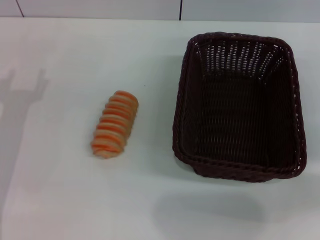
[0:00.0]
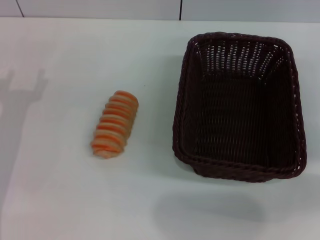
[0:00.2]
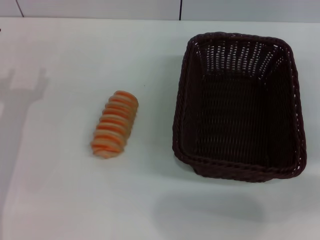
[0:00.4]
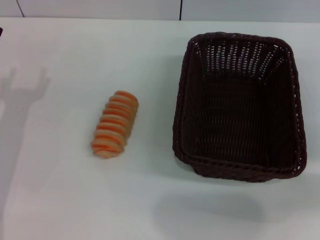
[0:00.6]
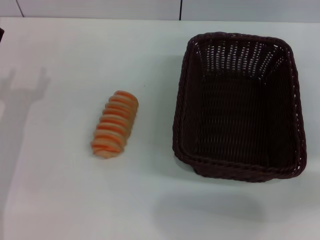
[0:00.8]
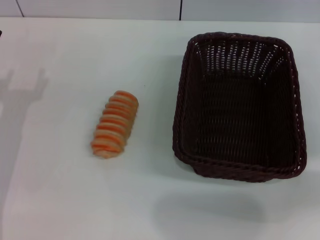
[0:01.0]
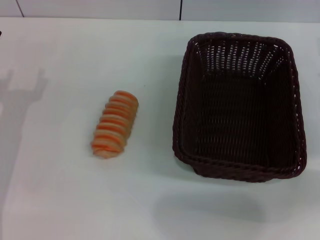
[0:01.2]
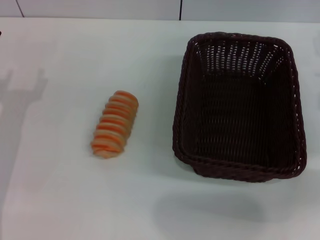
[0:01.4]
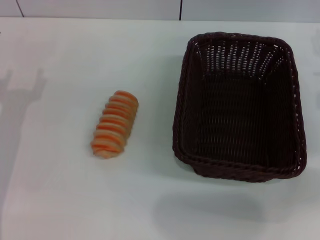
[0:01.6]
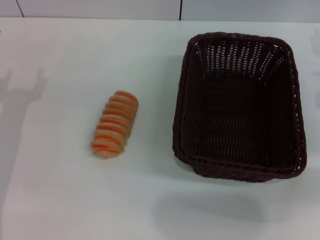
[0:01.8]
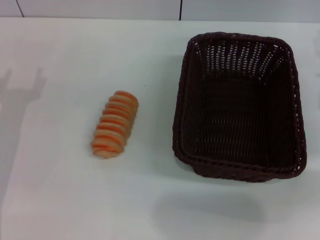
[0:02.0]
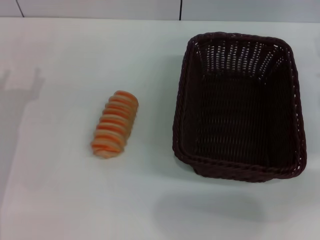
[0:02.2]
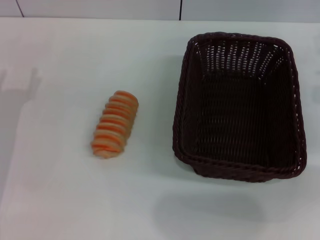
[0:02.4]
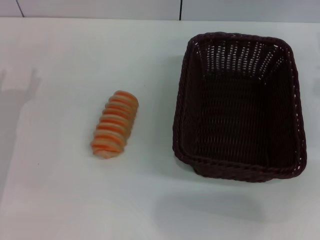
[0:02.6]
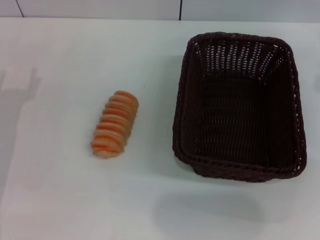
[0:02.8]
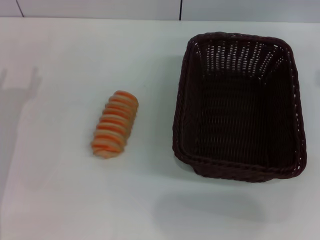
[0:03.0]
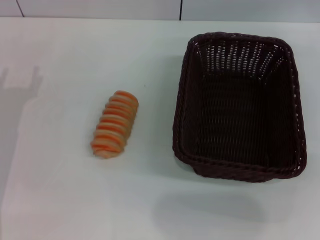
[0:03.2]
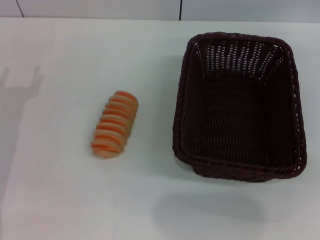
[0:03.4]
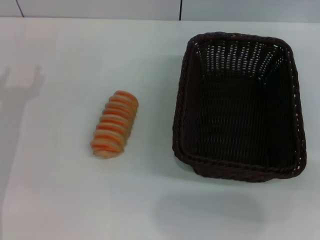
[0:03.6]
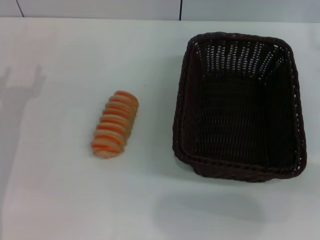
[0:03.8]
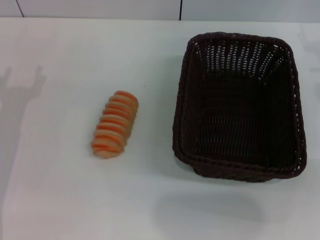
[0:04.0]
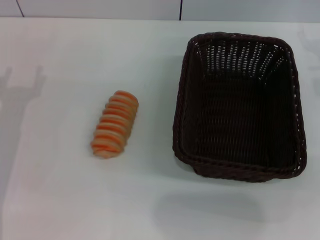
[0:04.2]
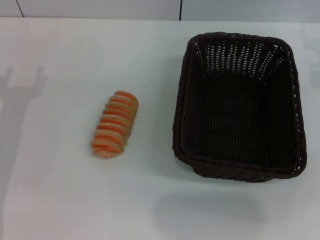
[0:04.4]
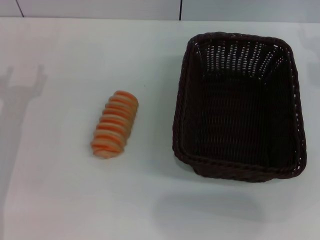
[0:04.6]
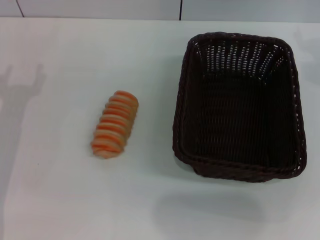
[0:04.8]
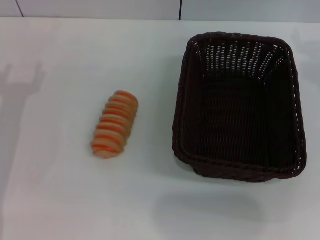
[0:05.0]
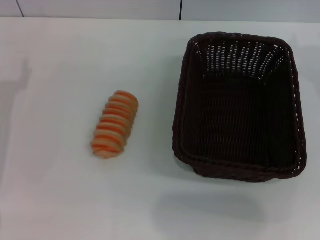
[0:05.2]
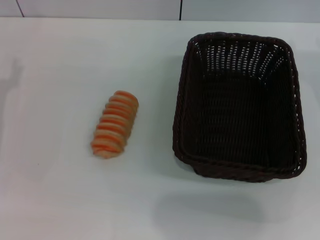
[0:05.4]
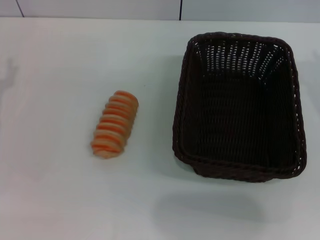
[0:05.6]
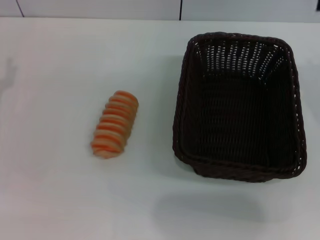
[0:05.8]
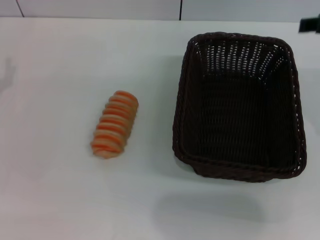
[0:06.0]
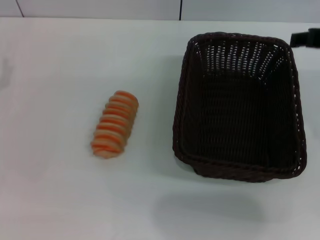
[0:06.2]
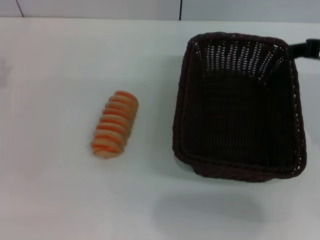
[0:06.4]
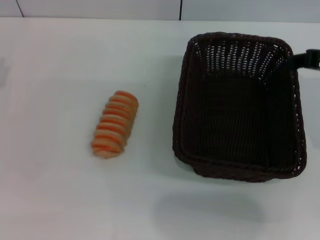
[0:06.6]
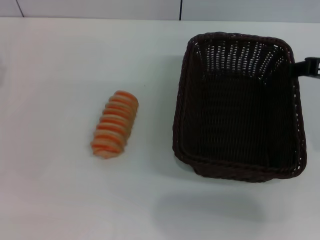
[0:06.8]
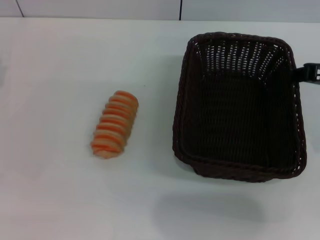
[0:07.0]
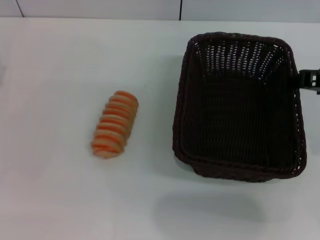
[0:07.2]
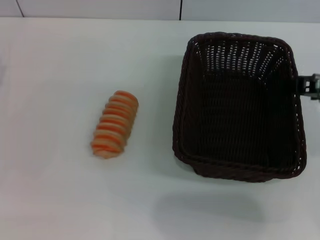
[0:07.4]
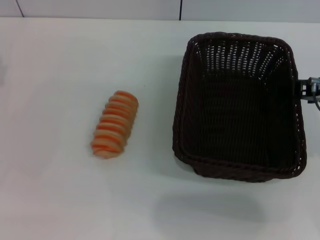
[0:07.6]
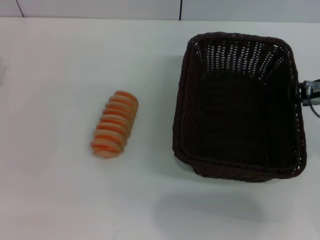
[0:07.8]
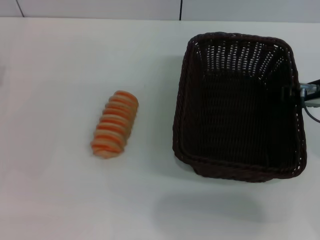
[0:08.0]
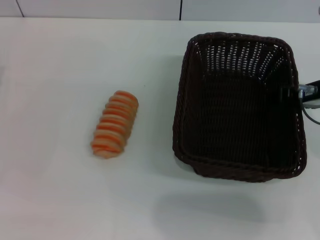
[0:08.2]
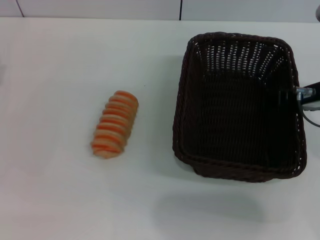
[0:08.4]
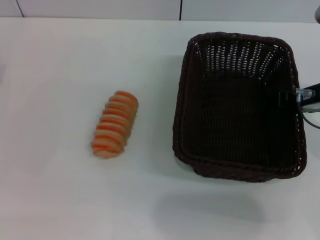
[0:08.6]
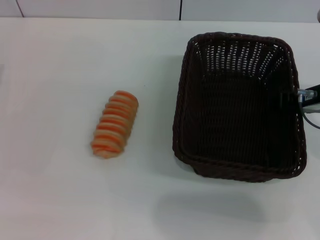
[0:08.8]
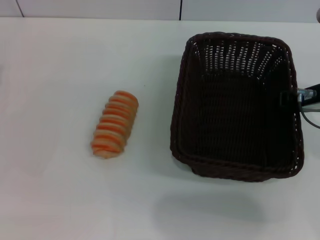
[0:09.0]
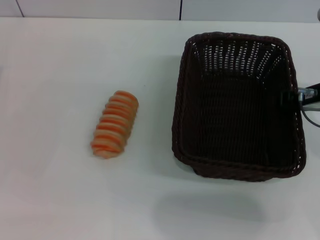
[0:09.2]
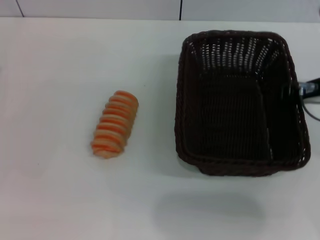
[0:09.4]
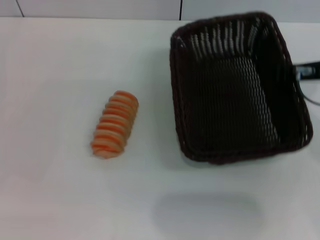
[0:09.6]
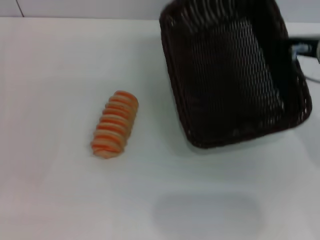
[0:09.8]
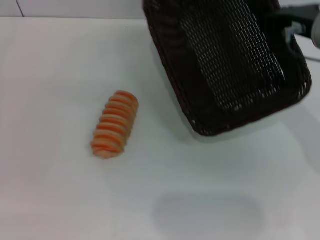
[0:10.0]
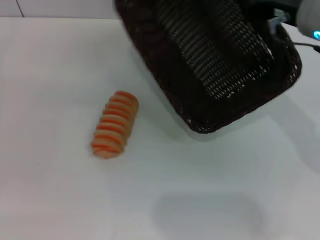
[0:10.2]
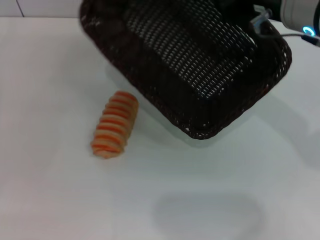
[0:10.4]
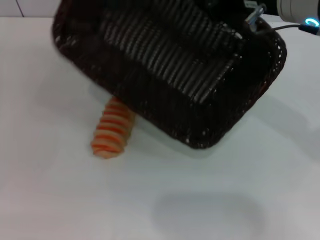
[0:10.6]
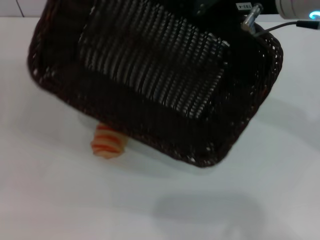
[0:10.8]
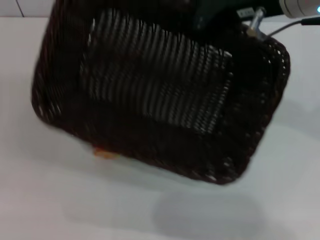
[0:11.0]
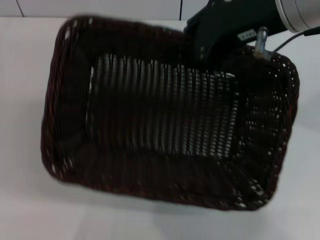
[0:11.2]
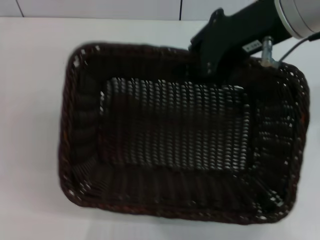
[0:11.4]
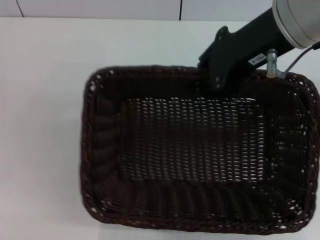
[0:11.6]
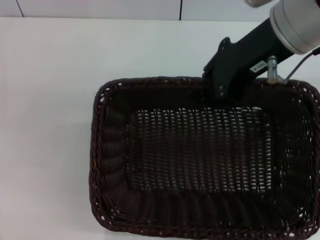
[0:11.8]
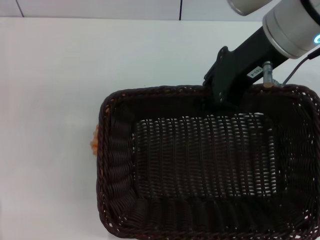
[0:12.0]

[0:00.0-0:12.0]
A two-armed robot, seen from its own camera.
Step, 0:00.0 to 0:09.8: Pick up the dark basket with the right gripper.
0:06.0 to 0:07.6: The right gripper travels downward by approximately 5 cm.
0:07.6 to 0:09.0: The right gripper closes its fingers.
0:09.0 to 0:10.4: The right gripper travels upward and to the left by roughly 10 cm, and closes up.

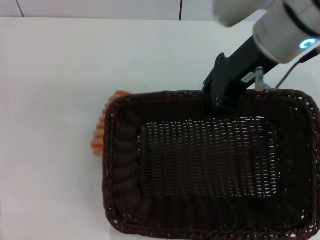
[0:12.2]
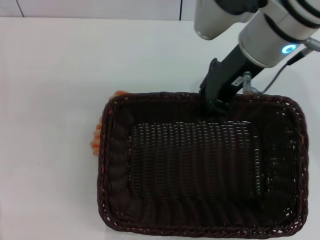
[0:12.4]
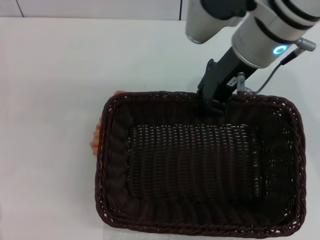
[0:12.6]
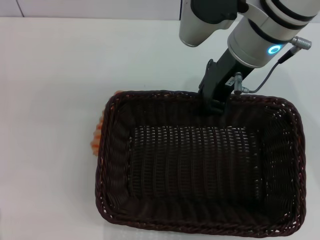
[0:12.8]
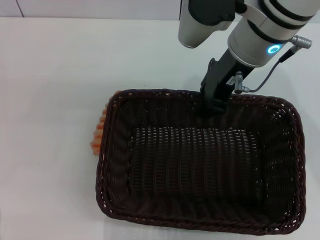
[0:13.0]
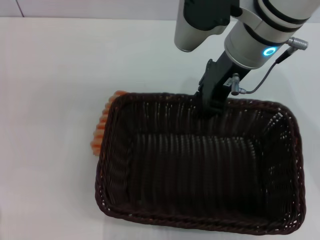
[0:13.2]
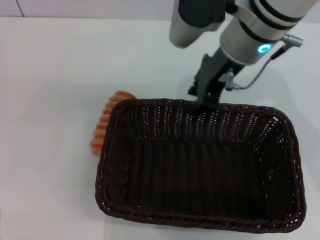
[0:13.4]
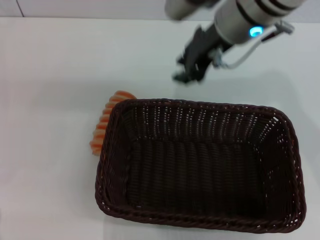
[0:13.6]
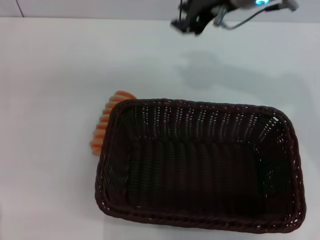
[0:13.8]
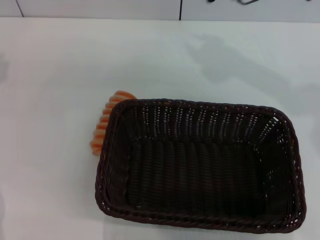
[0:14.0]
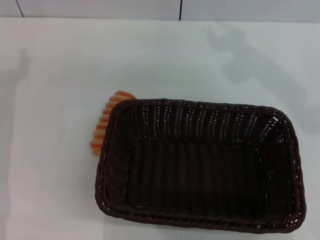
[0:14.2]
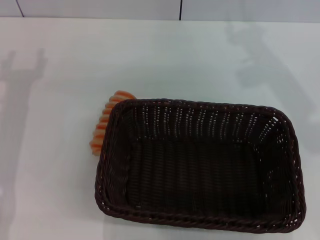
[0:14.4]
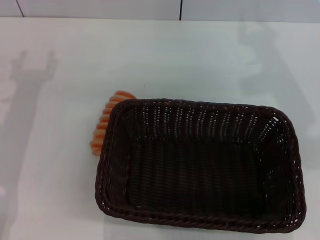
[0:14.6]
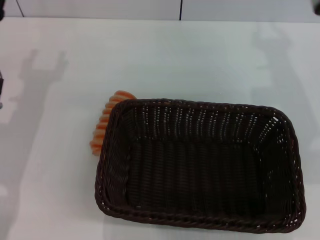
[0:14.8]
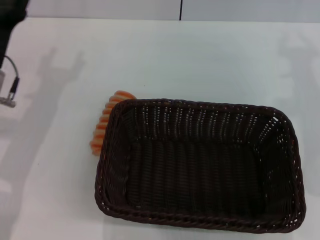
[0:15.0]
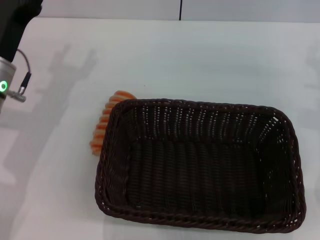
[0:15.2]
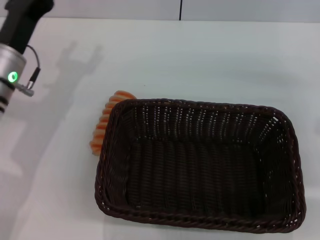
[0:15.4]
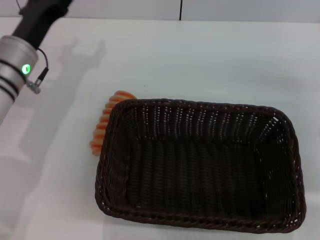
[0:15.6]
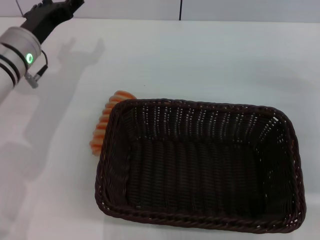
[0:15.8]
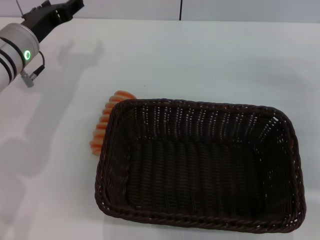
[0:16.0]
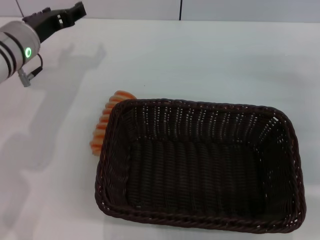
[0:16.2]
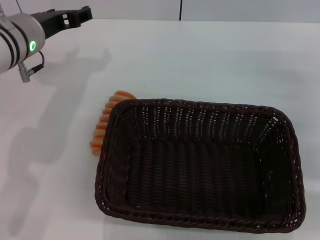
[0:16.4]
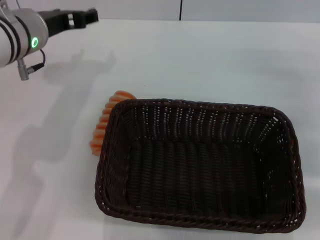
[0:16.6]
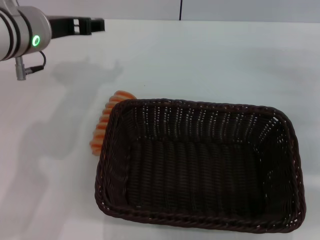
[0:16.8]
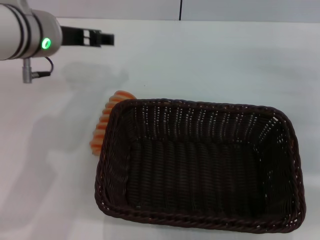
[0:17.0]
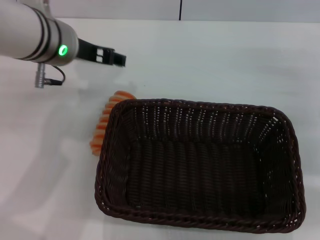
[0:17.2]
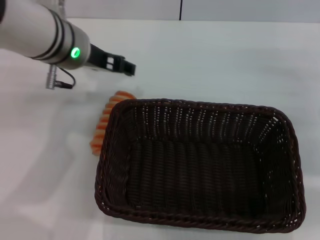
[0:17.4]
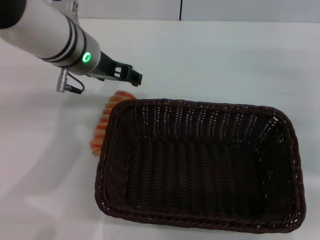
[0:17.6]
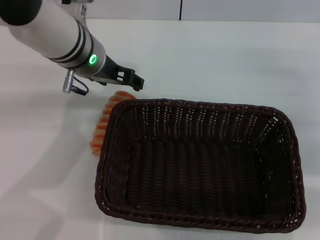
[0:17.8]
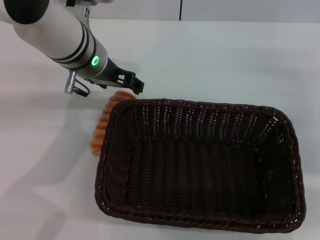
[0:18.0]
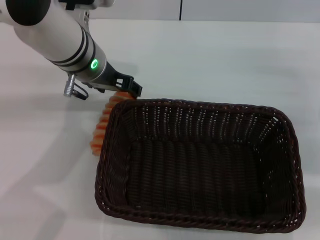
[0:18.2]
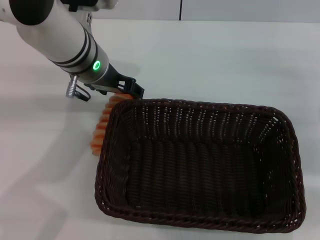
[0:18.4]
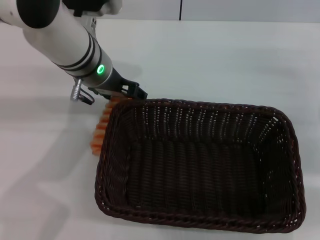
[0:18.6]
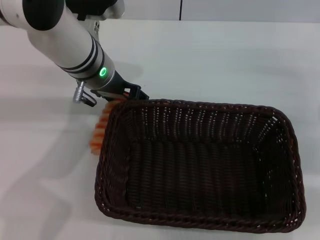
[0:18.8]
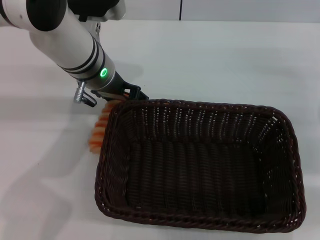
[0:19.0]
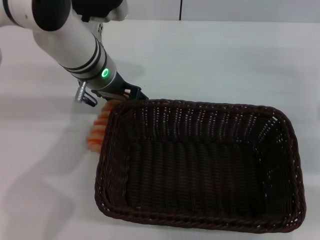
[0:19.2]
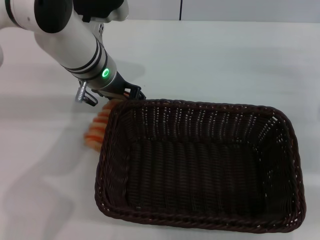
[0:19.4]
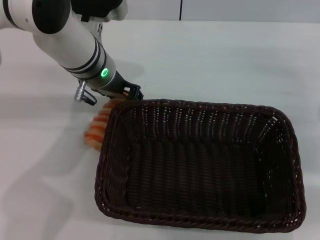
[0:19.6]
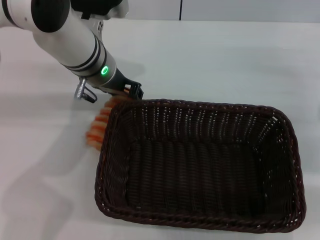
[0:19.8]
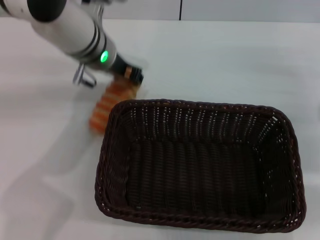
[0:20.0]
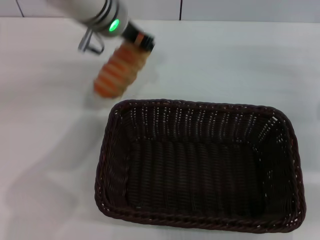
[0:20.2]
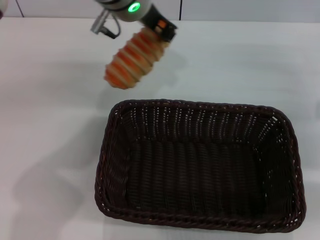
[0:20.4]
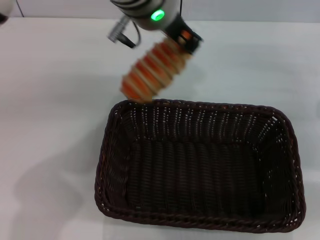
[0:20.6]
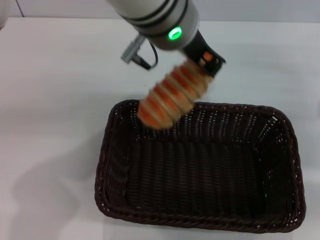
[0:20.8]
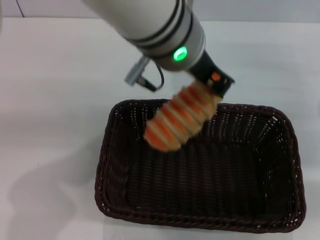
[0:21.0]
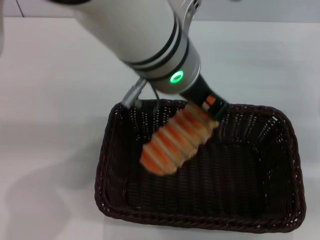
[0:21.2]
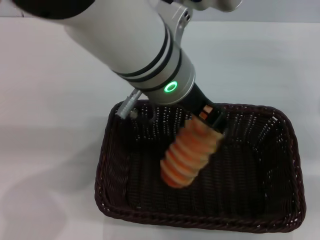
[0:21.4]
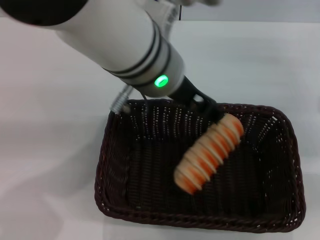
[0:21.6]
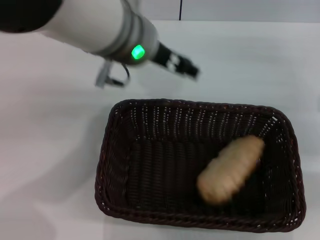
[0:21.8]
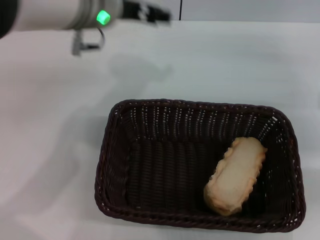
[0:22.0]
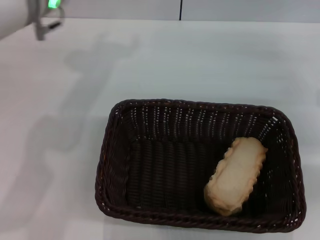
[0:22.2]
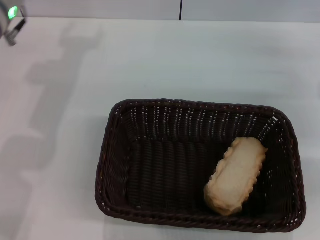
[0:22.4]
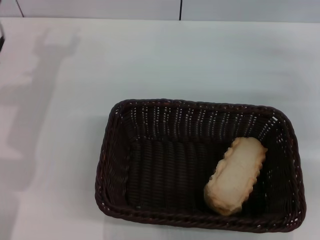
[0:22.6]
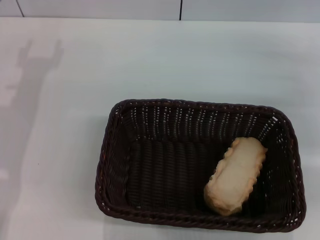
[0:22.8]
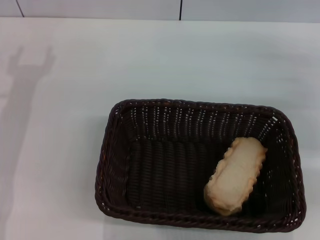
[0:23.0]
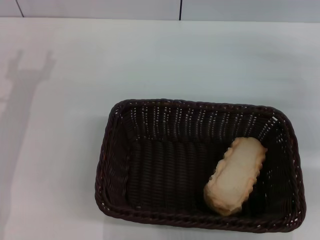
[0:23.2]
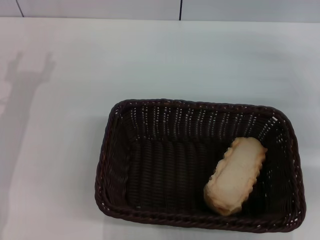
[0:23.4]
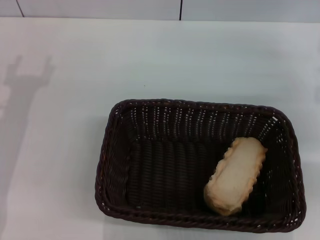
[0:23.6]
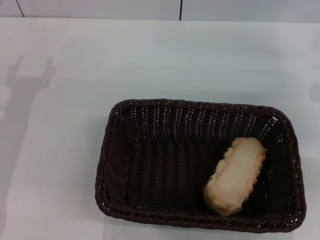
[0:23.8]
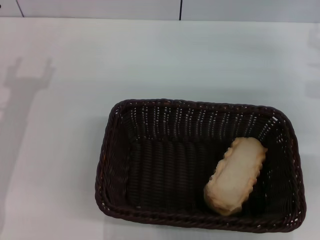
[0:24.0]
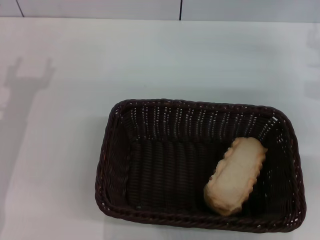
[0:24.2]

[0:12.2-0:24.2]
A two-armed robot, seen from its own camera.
Step, 0:13.6 to 0:20.0: Pick up the long bread with the left gripper.
Step, 0:20.2 to 0:21.6: Place the long bread into the dark basket with the left gripper.
0:12.2 to 0:13.8: The right gripper travels forward by approximately 5 cm, and opens up.
0:13.8 to 0:15.2: The left gripper shifts about 10 cm to the right. Meanwhile the right gripper goes about 20 cm to the right, downward and backward.
0:15.2 to 0:16.6: The left gripper heads upward and to the right, covering some 10 cm. Meanwhile the right gripper changes place by some 5 cm.
0:16.6 to 0:18.2: The left gripper heads to the right, covering some 5 cm.
0:18.2 to 0:19.8: The left gripper closes its fingers.
0:19.8 to 0:21.2: The left gripper moves upward, backward and to the right, roughly 20 cm, and closes up.
0:21.2 to 0:22.6: The left gripper goes some 25 cm to the left and downward, and opens its fingers.
